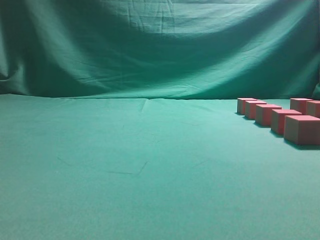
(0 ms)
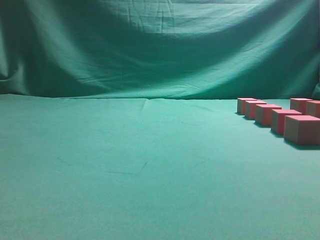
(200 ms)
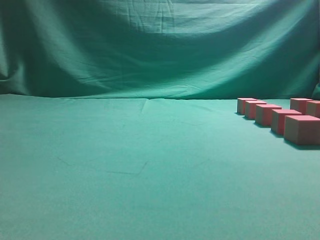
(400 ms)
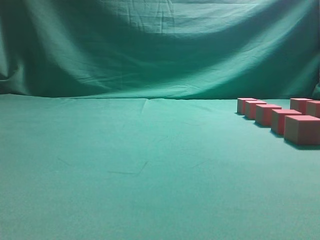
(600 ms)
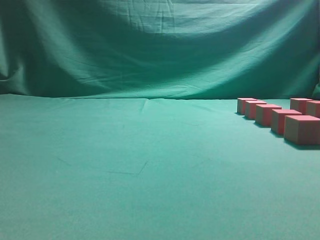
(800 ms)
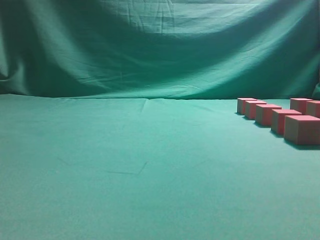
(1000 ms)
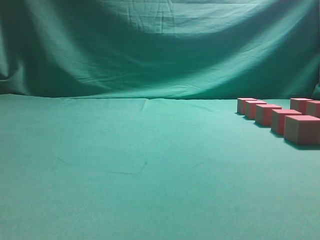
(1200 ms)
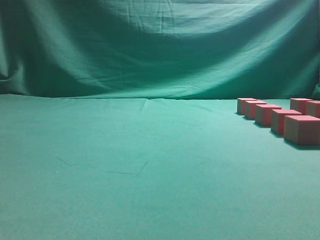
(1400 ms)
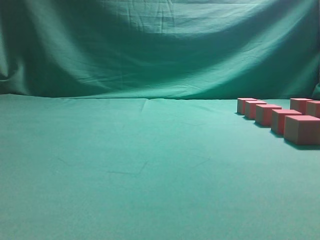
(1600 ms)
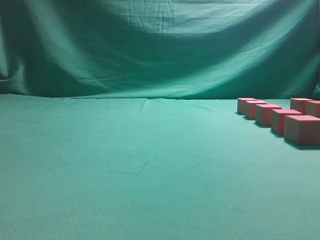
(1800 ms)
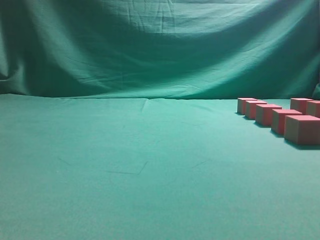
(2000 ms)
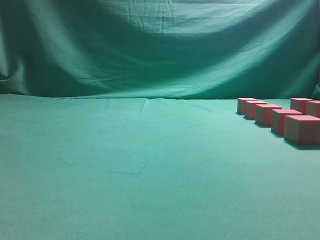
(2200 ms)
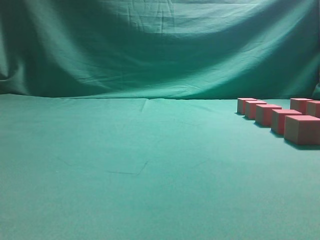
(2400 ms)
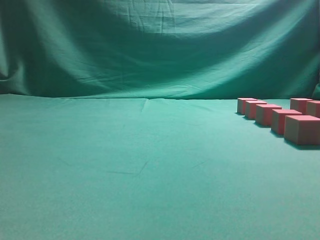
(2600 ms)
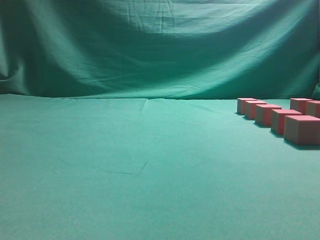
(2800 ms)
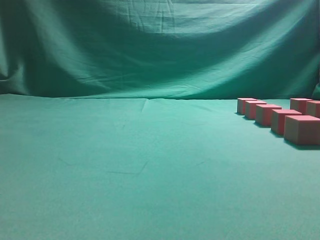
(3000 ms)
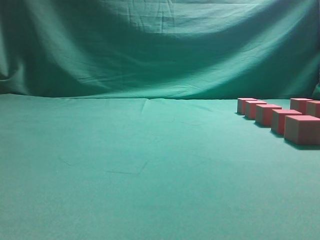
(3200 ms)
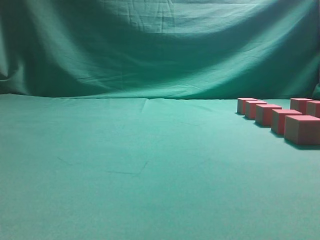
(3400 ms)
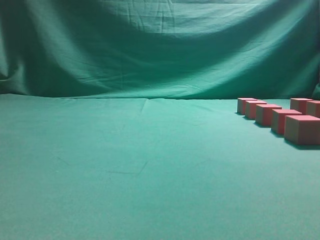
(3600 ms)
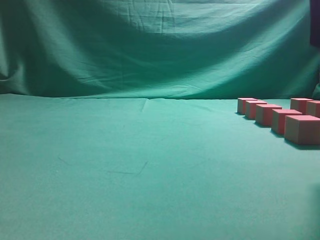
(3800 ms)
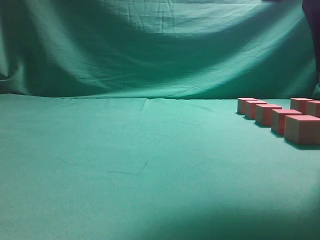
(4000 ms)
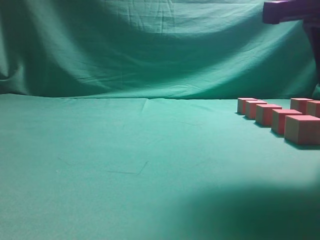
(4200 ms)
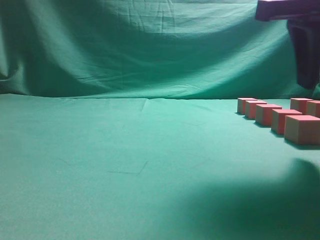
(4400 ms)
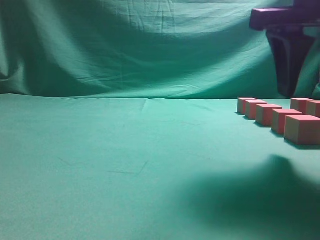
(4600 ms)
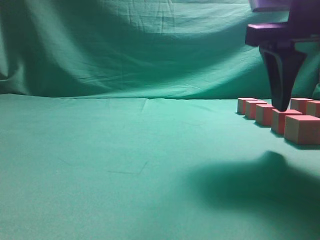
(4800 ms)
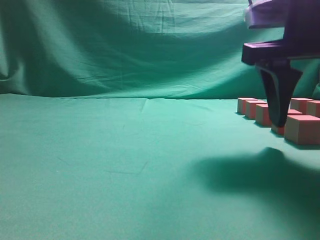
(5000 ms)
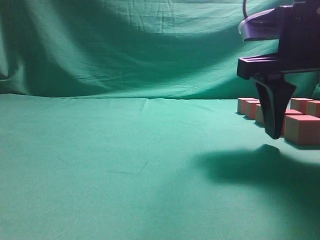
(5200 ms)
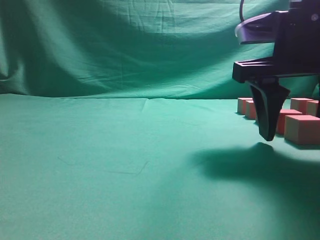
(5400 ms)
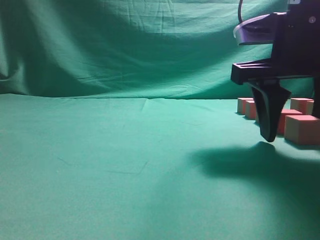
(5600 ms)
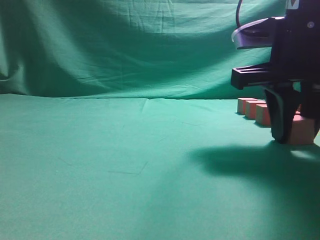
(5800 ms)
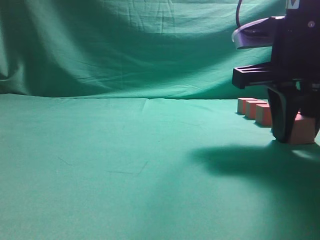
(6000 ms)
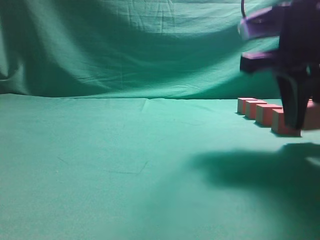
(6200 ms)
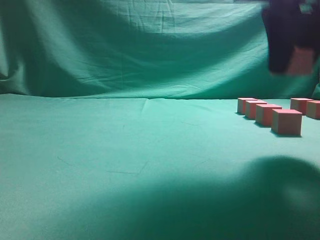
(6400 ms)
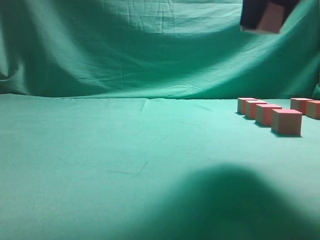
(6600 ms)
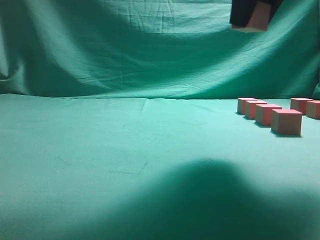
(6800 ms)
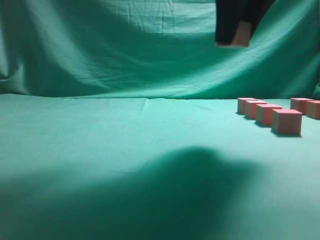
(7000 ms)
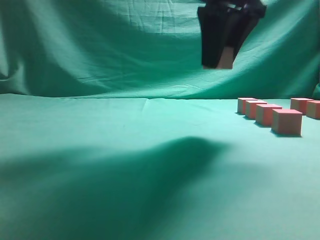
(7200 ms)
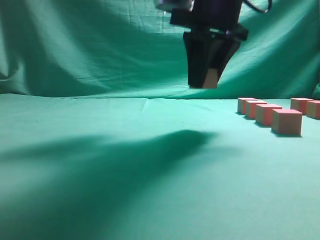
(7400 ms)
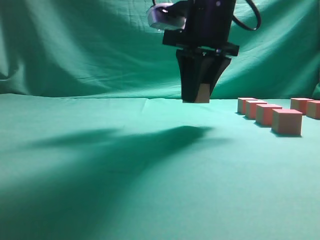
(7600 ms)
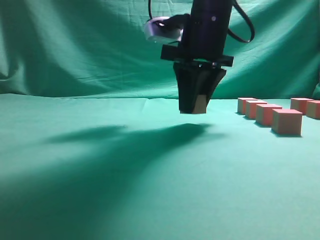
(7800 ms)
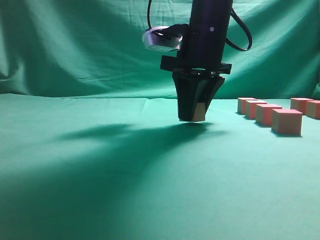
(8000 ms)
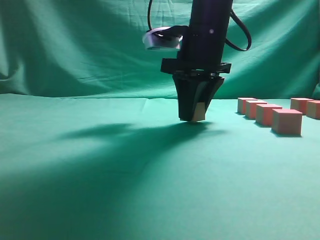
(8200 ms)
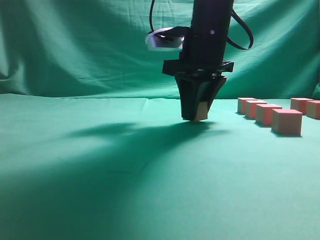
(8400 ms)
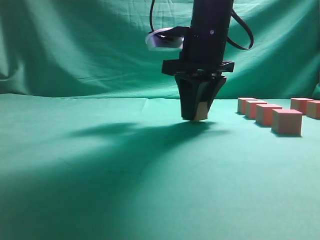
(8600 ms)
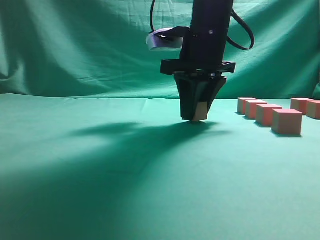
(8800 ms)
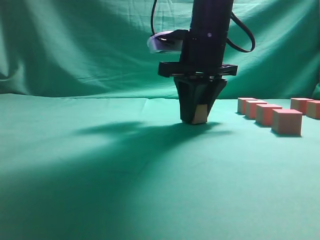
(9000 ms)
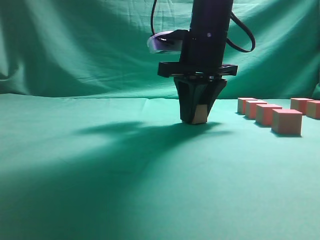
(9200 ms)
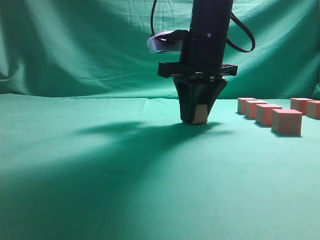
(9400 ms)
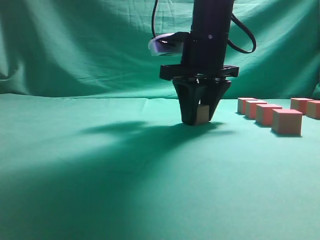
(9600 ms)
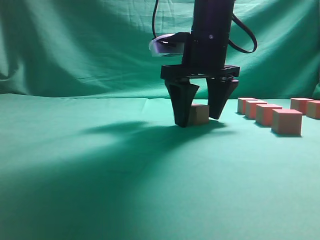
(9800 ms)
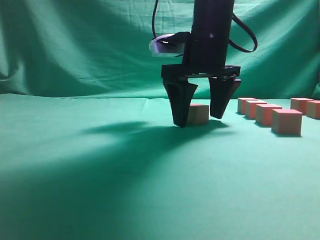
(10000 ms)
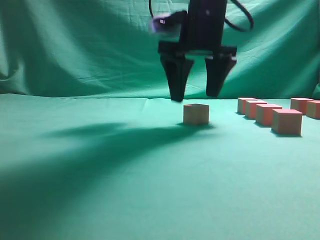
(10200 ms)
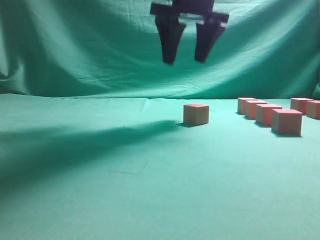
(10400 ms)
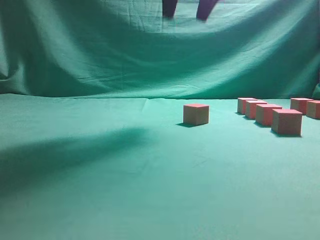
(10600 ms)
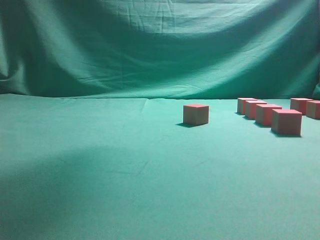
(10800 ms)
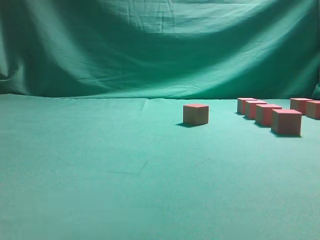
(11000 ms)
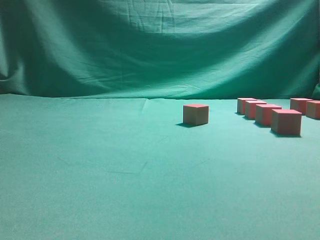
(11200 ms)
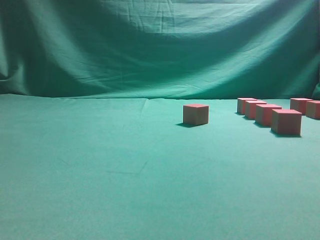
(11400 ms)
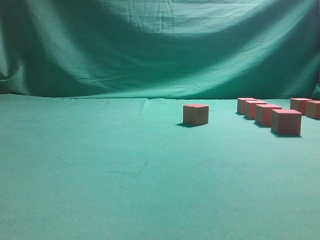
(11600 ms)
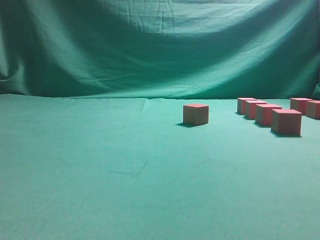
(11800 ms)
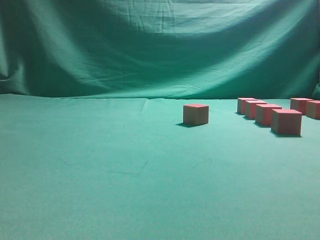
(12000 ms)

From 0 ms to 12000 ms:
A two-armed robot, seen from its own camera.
Task of the whole recording: pick up the multiple cubes in two columns one by one and place them in another position on the table.
Step, from 0 ms to 6200 ms: Pick up the block on the table.
Step, from 6400 ms to 10400 ms: Place the block at the correct position to assemble the letter S.
From 3000 ms to 4400 ms: The right gripper is displaced forward, downward and to the left by approximately 15 cm, and opens its fingers.
From 4400 ms to 6000 ms: The right gripper is displaced downward by approximately 5 cm, and opens, then closes once more.
From 6000 ms to 7600 ms: The right gripper goes some 15 cm forward and to the left.
From 7600 ms to 9000 ms: The grippers make only small movements.
From 9000 ms to 10400 ms: The right gripper travels upward by roughly 10 cm, and opens its fingers.
From 10400 ms to 12000 ms: The right gripper goes some 30 cm to the right and backward.

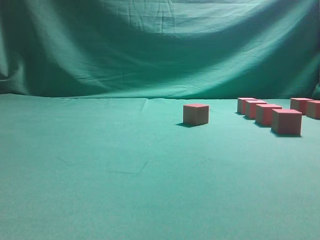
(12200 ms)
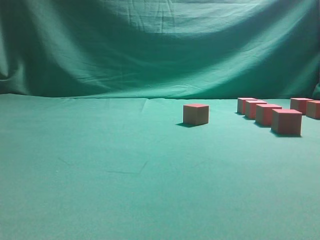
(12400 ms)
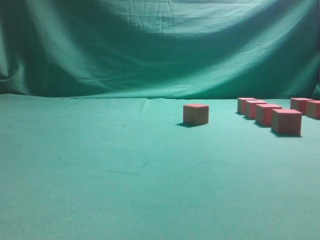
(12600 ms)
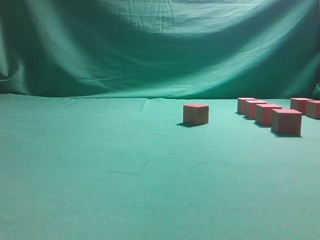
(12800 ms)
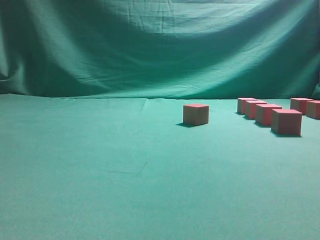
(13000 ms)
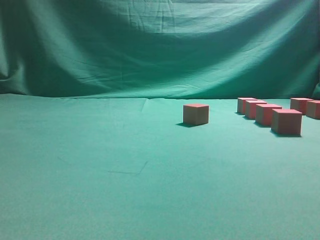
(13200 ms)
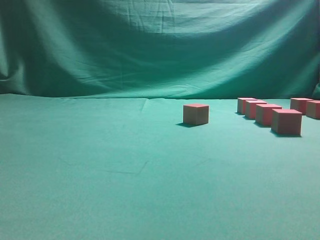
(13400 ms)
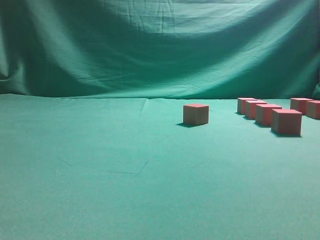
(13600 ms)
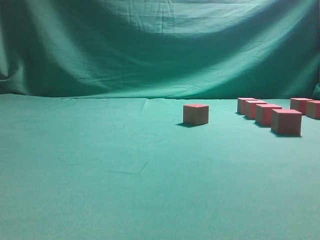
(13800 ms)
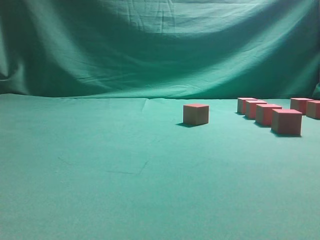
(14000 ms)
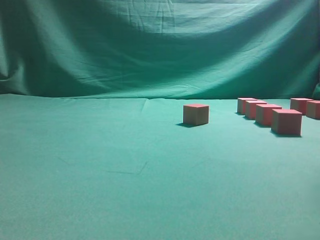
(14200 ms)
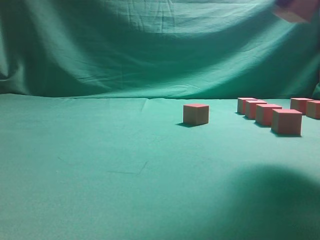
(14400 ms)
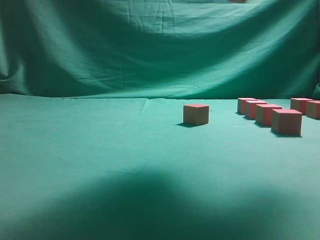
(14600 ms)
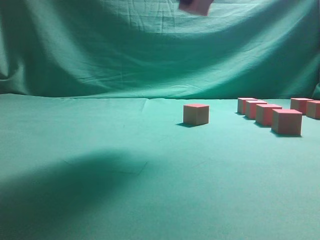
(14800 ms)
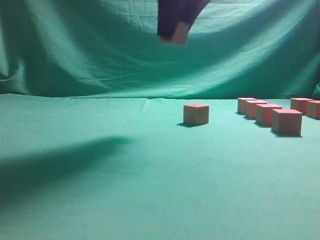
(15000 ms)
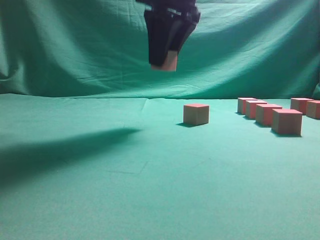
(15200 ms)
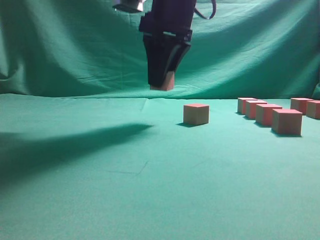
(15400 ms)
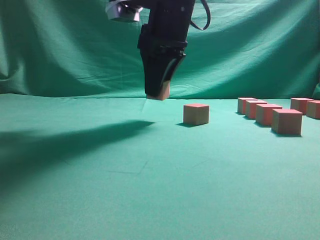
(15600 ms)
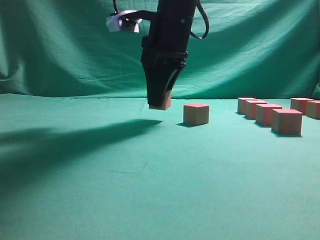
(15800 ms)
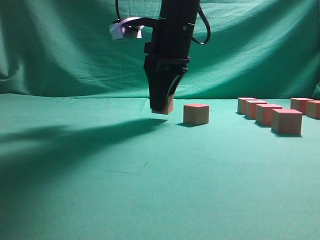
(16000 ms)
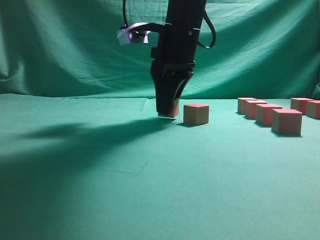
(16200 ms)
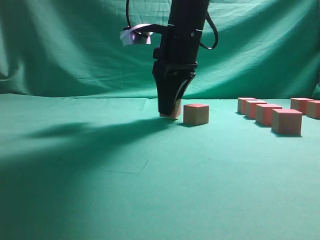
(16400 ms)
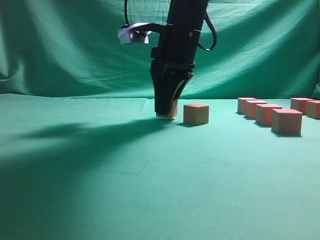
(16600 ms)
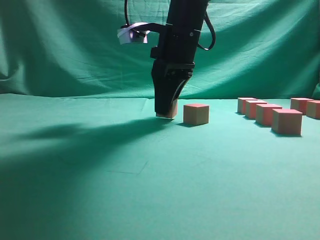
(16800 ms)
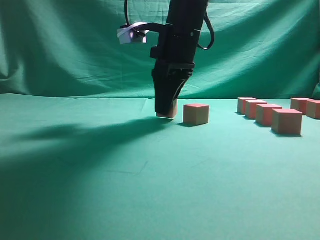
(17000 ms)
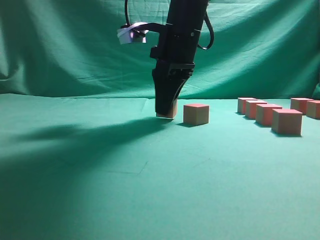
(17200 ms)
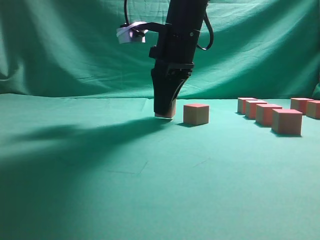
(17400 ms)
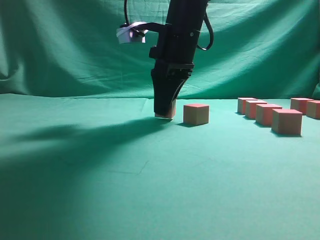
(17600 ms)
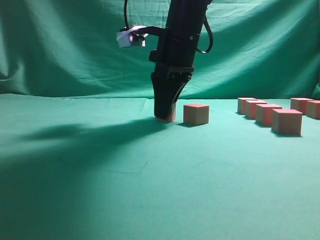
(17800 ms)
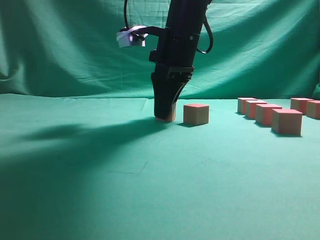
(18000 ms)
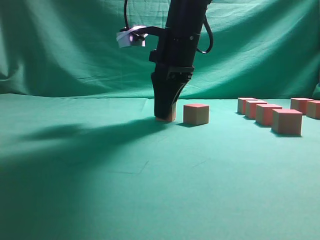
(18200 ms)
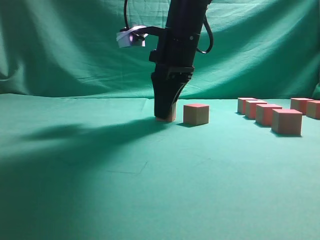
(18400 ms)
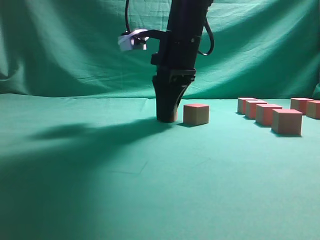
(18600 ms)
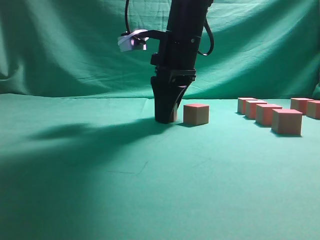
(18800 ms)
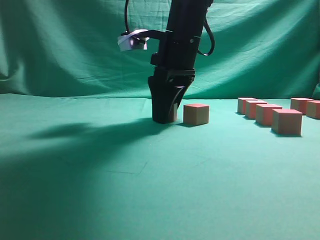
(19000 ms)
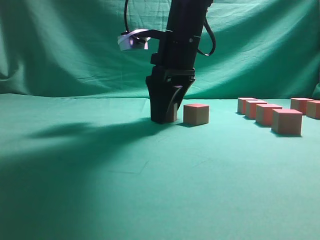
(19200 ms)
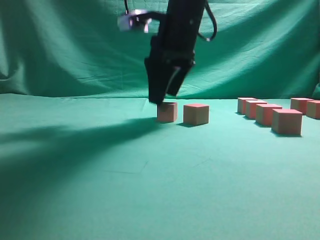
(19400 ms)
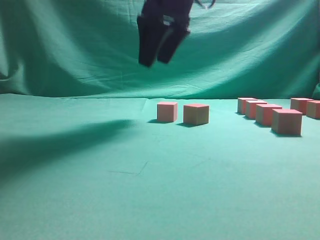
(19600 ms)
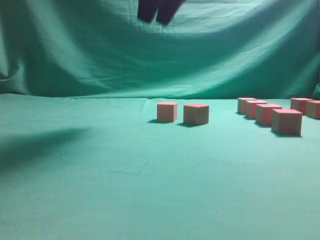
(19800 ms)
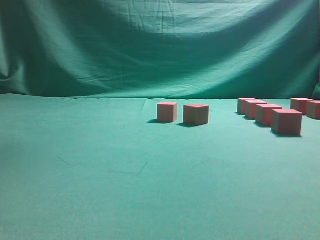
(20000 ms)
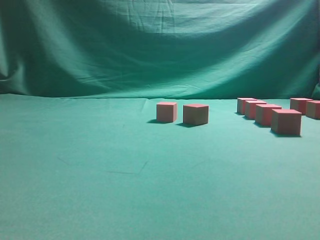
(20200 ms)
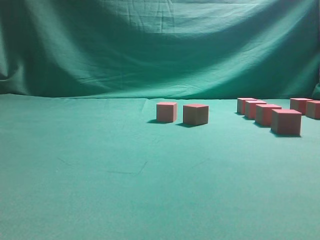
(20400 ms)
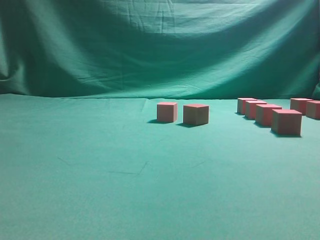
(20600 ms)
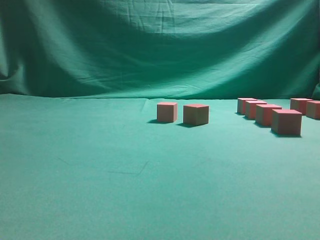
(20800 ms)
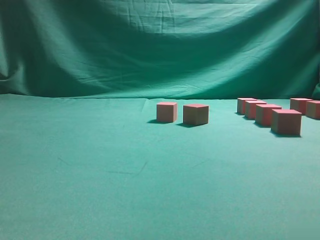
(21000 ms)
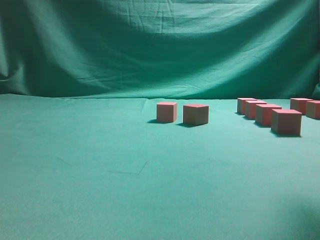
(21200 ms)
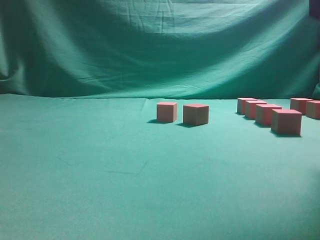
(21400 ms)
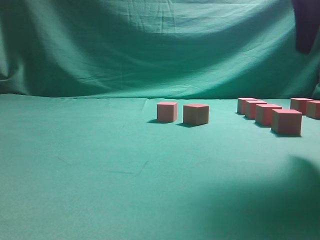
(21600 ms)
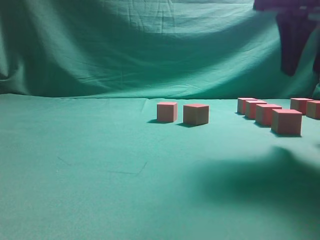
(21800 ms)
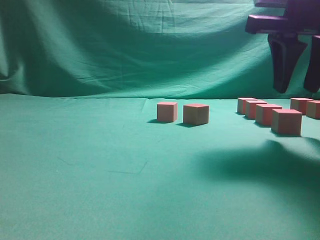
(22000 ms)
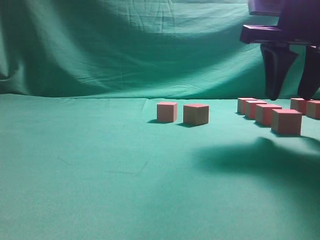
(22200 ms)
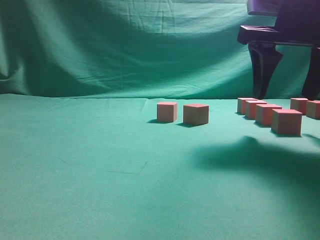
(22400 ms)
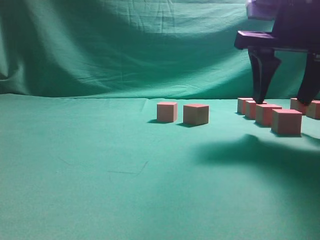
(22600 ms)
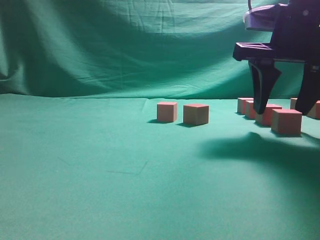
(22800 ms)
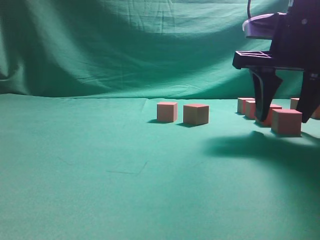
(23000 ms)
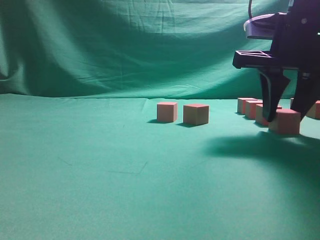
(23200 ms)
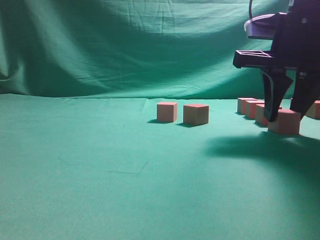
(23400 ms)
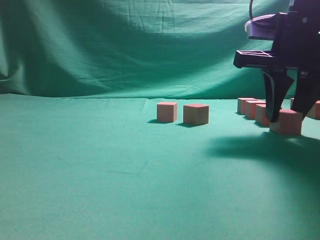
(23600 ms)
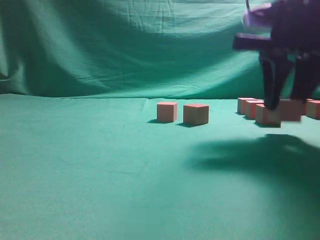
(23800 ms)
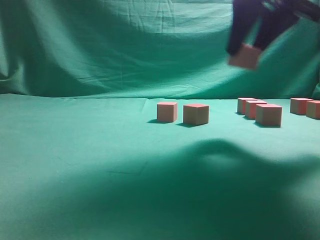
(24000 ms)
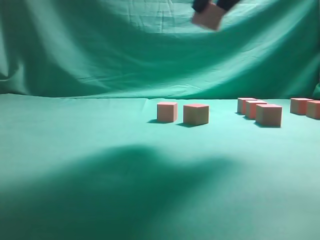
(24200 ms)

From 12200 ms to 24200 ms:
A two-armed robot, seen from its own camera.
Task of the whole recording: pick up the multiple cubes in two columns one by one and place them in another position on the table.
Step, from 13400 ms to 19600 ms: Place the block at the correct position to assemble the letter S.
Step, from 19800 ms to 23600 ms: Pick up the block on the table.
From 13800 ms to 15200 ms: The right gripper heads to the left, covering approximately 25 cm.
From 15200 ms to 16600 ms: The right gripper travels downward by about 10 cm.
From 16600 ms to 18200 ms: The grippers stay close to where they were, moving slightly.
From 18200 ms to 19800 ms: The right gripper travels upward by approximately 15 cm, and opens up.
From 19800 ms to 21200 ms: The right gripper goes some 20 cm to the right and backward.
From 21200 ms to 22600 ms: The right gripper heads downward, covering approximately 15 cm.
From 22600 ms to 24200 ms: The right gripper goes some 10 cm upward and to the left, and closes.
